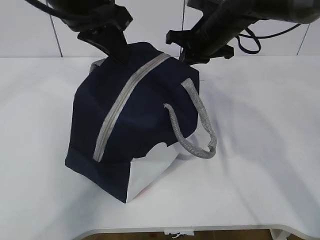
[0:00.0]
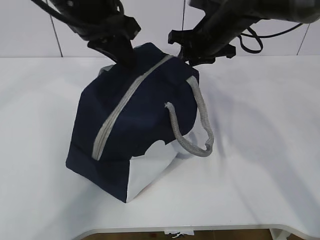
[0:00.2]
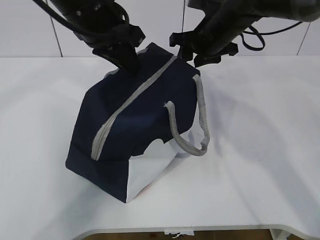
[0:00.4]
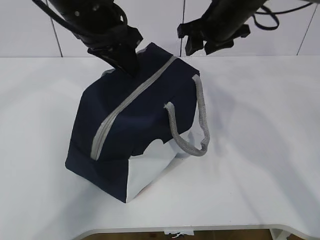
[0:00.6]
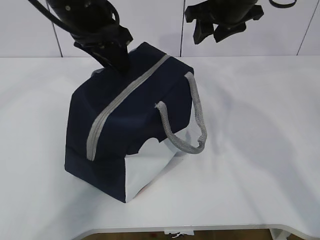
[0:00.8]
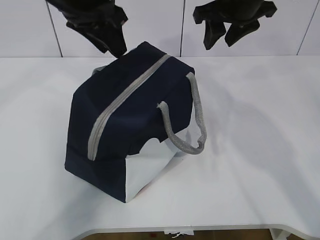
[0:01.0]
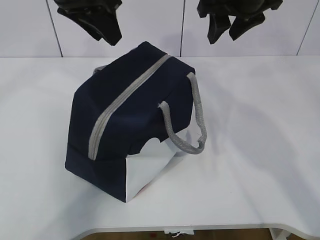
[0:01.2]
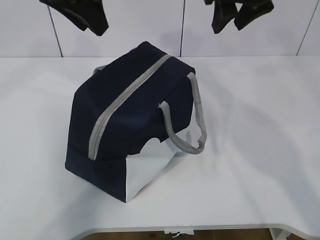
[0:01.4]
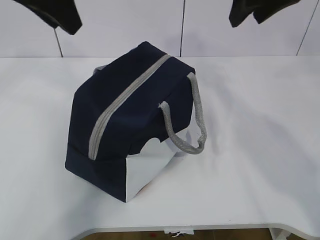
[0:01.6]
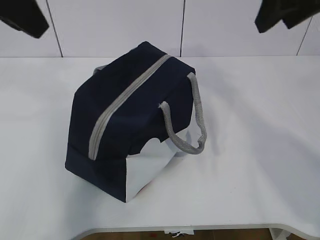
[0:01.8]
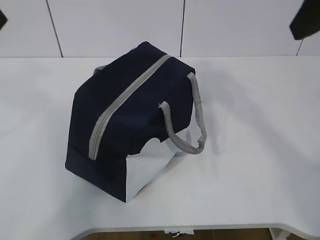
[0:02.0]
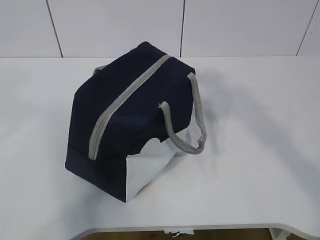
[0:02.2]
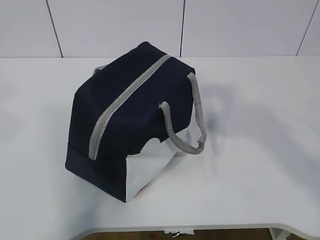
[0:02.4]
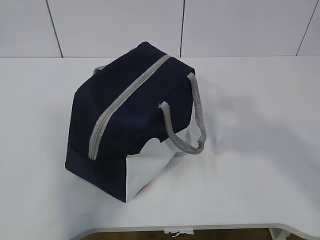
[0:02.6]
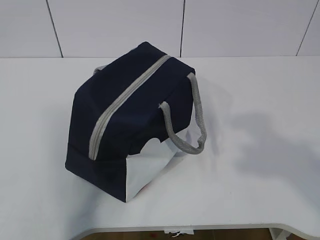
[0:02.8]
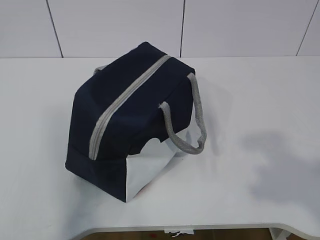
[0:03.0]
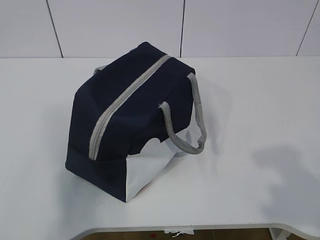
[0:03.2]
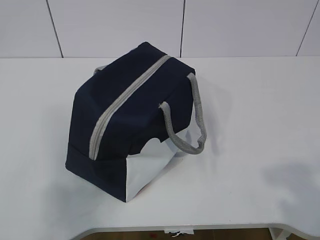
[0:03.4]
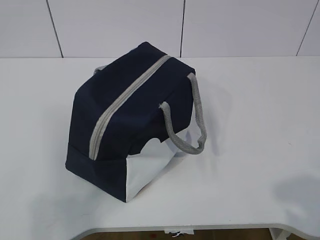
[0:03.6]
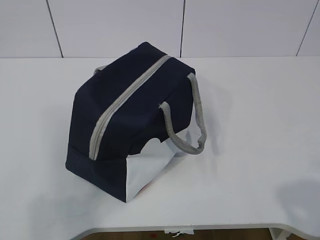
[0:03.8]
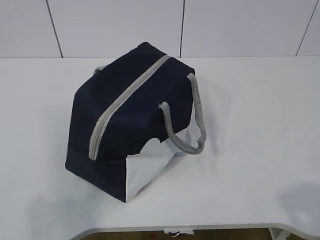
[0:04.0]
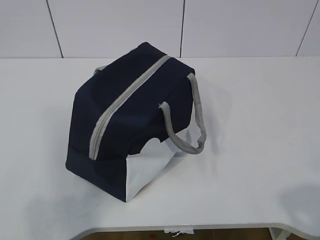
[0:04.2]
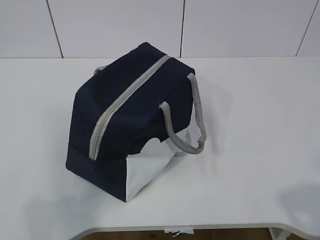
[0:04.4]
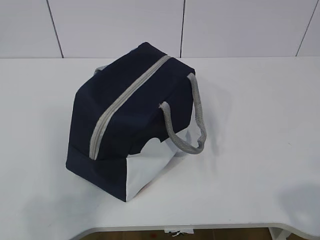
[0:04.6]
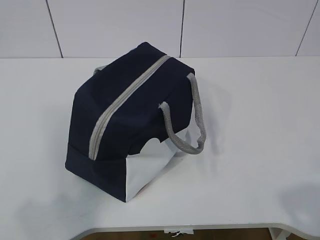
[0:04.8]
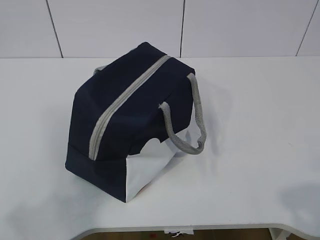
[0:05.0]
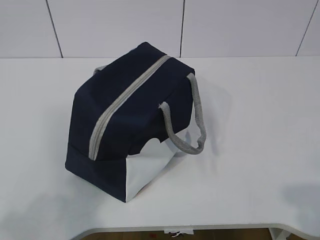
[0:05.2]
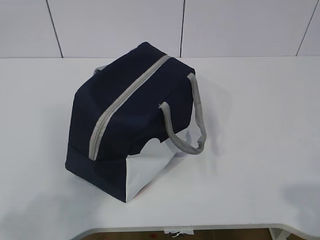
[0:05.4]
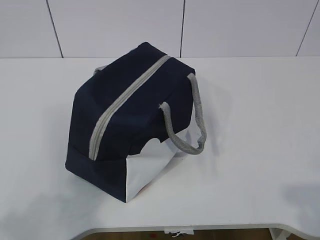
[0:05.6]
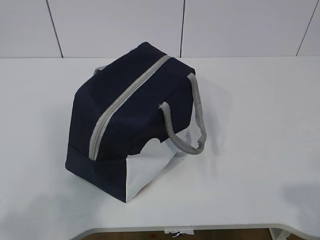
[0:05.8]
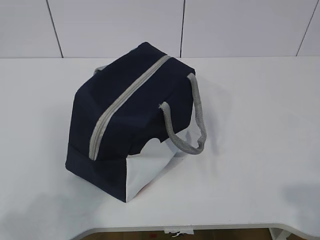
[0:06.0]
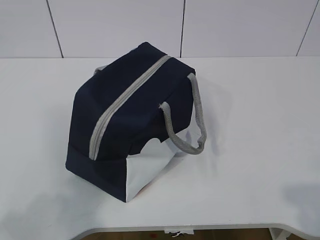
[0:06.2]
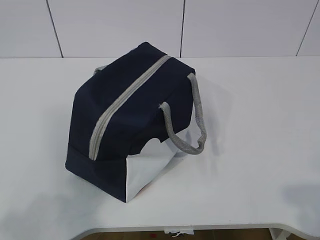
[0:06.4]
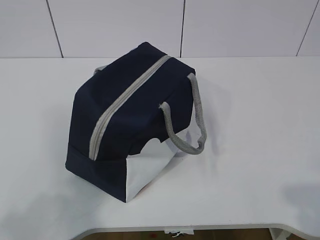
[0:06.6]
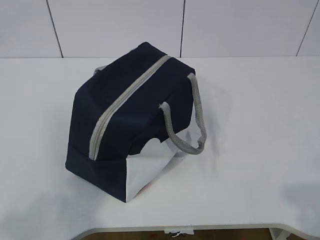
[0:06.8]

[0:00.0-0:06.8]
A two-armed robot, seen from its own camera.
0:00.0 to 0:01.4: The right gripper is displaced upward and backward by some 15 cm, and opens; the left gripper opens up.
0:01.4 to 0:02.8: The right gripper moves backward, some 35 cm; the left gripper is displaced backward and to the left by roughly 30 cm.
0:02.8 to 0:04.0: The grippers both shift downward and backward by roughly 15 cm.
0:05.4 to 0:06.8: Both grippers stay put.

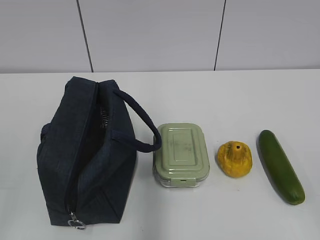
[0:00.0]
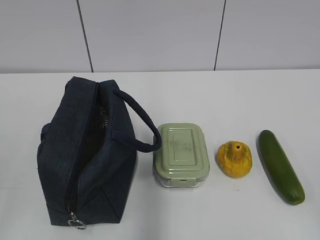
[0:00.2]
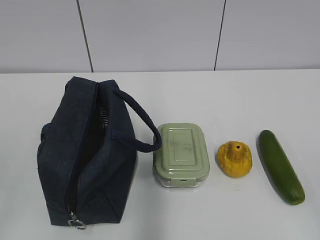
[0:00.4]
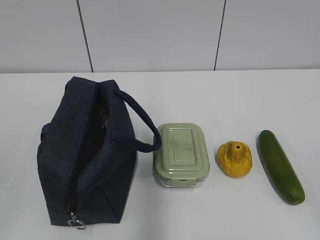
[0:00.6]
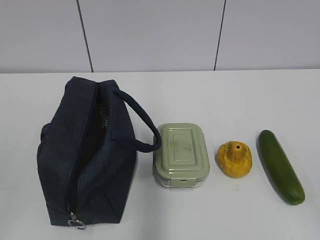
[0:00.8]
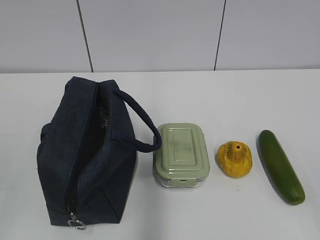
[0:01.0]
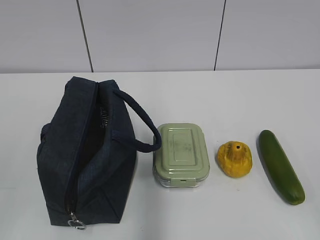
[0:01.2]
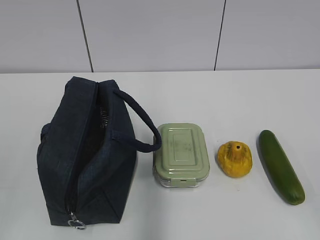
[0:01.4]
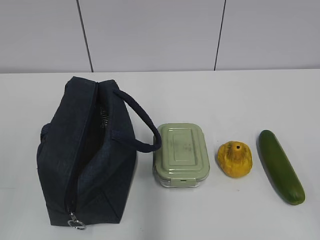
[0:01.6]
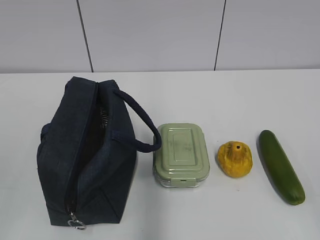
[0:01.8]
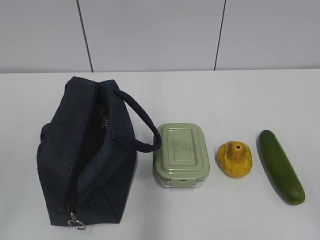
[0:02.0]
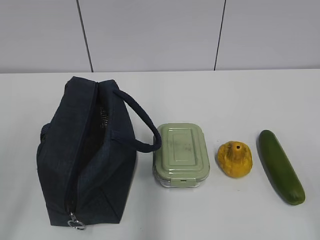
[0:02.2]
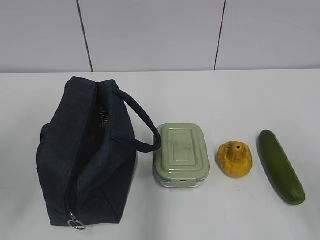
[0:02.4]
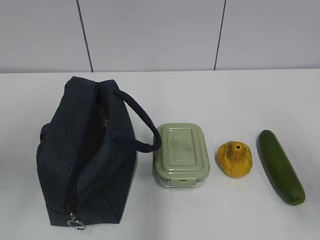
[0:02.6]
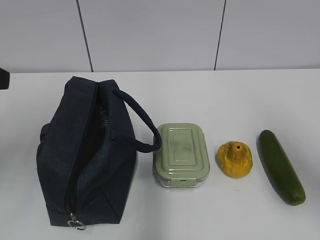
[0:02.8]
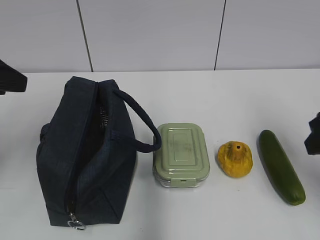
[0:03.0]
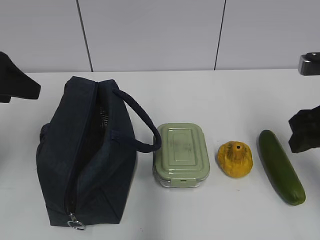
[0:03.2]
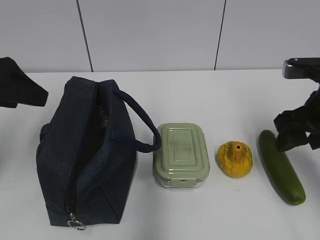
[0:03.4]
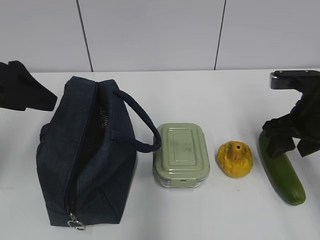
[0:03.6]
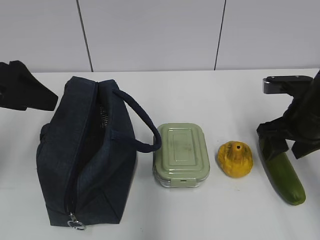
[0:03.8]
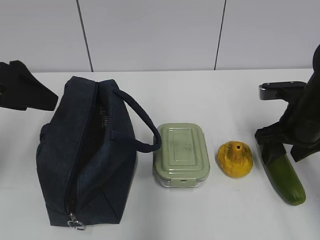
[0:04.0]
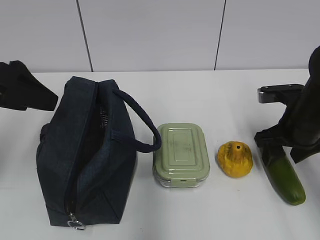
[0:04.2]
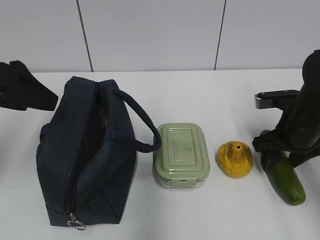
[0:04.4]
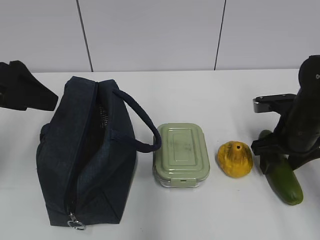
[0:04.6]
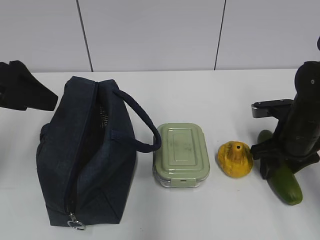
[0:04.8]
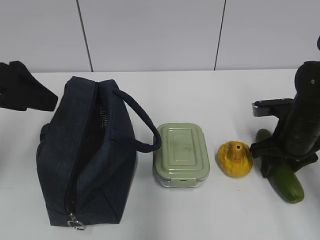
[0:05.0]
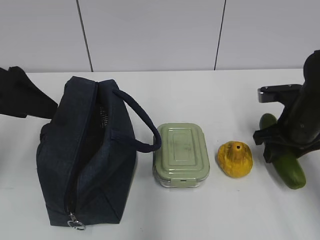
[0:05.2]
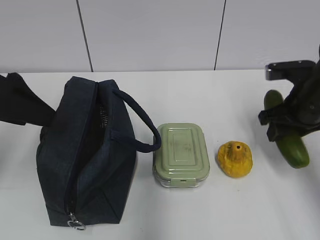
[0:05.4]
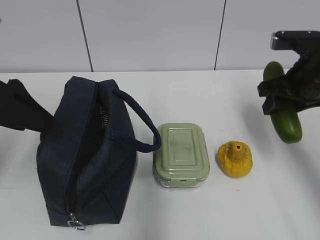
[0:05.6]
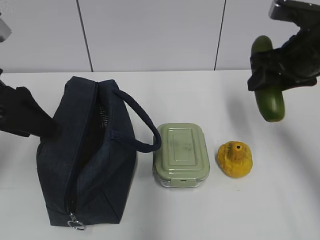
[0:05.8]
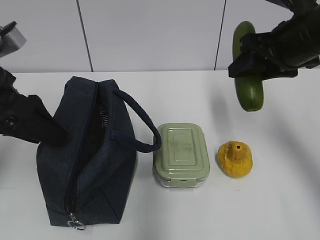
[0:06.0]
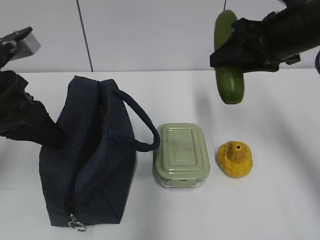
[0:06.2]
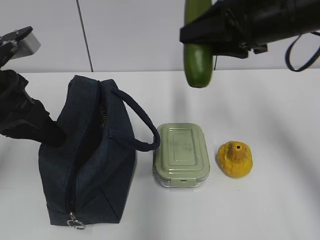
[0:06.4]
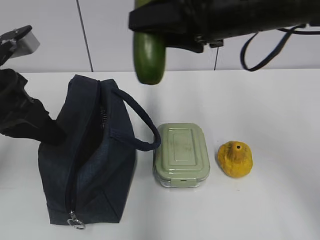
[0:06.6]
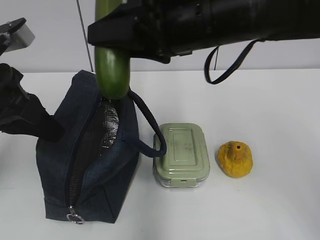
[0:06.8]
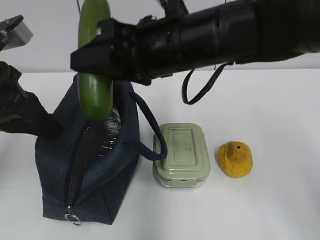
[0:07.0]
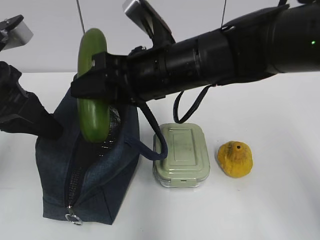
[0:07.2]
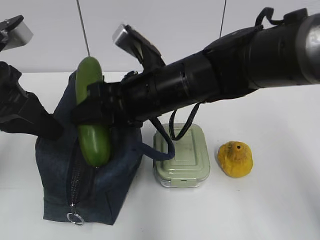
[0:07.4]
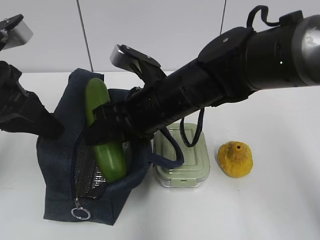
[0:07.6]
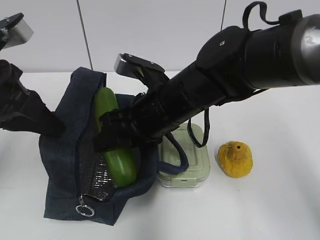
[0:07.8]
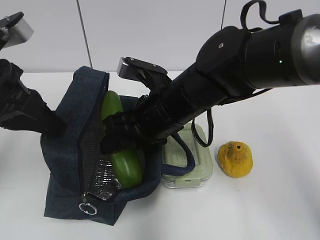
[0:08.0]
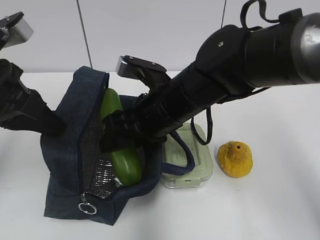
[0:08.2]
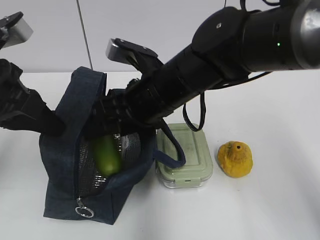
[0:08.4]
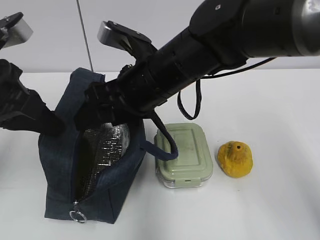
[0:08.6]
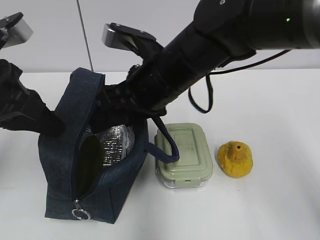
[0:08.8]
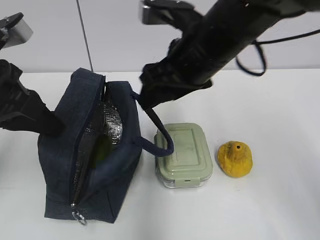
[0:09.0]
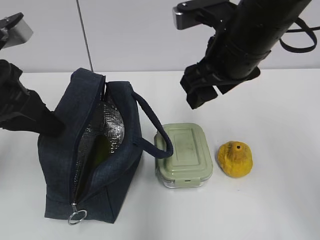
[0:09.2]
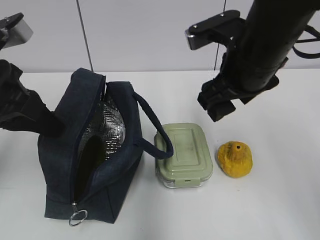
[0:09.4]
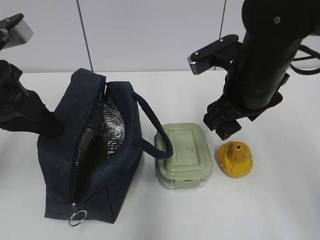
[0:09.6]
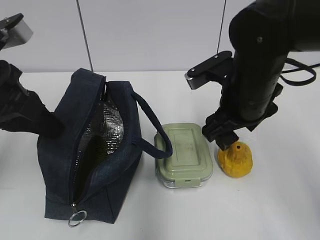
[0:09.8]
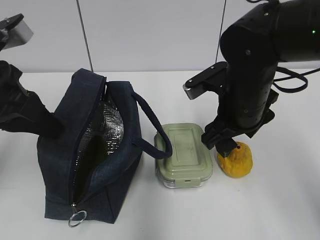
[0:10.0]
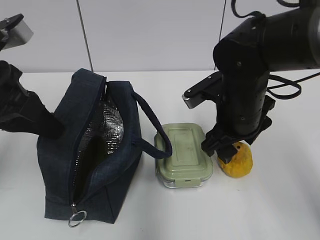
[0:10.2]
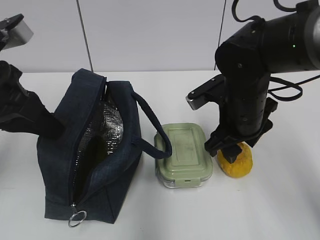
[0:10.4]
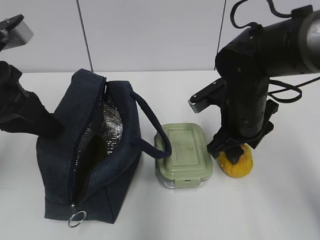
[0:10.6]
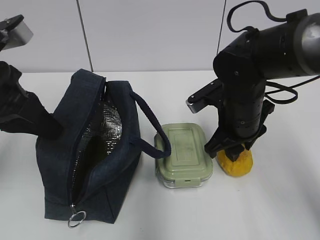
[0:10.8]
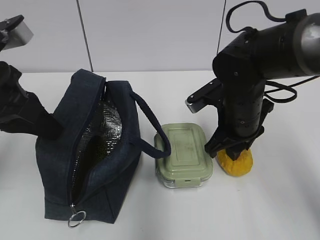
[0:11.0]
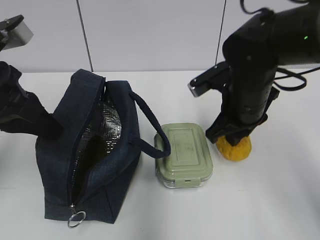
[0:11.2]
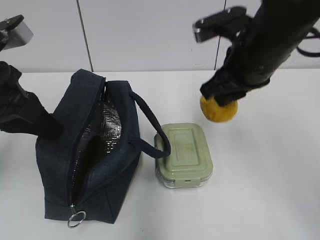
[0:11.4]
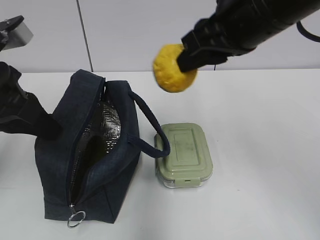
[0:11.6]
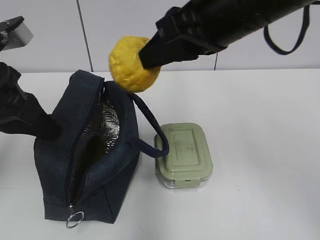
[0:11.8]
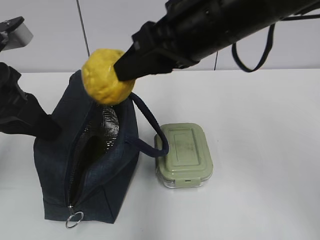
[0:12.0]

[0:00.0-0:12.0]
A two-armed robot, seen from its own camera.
Step, 0:00.0 to 0:04.8: Grab the cucumber with your right hand.
Step, 0:05.2 to 0:06.6: Grab the lunch bag with your left hand.
Step, 0:06.8 to 0:08.8: Place it into the bag with your right hand.
Step, 0:09.0 to 0:11.0: Grab the pear with your right hand.
0:01.6 to 0:03.0: Both grippers travel together forward, some 25 cm.
0:03.0 to 0:04.4: The right gripper heads downward and forward, covering roughly 15 cm.
0:04.4 to 0:06.0: The right gripper travels upward by about 15 cm.
0:06.0 to 0:07.6: The right gripper goes approximately 20 cm to the left. Meanwhile the left gripper closes.
0:07.6 to 0:09.0: The right gripper moves upward and to the right, some 10 cm.
0:09.0 to 0:10.4: The right gripper travels downward and to the right by about 10 cm.
0:10.4 to 0:12.0: The right gripper heads upward and to the left, covering about 15 cm, and closes up.

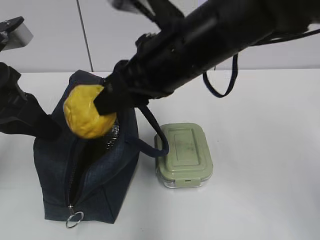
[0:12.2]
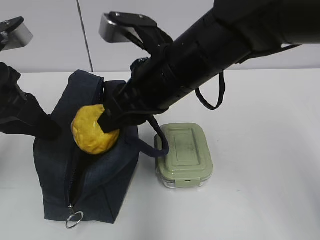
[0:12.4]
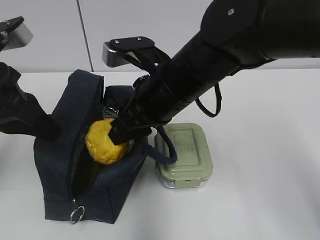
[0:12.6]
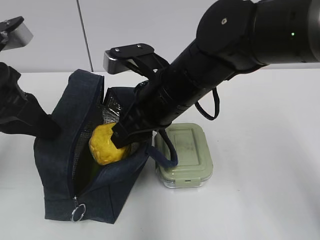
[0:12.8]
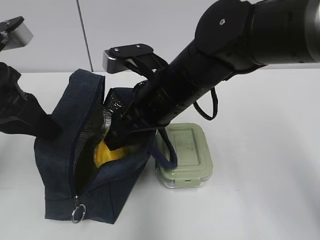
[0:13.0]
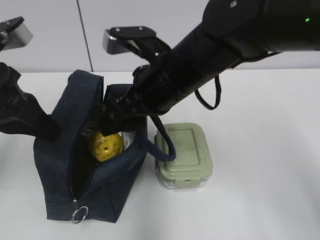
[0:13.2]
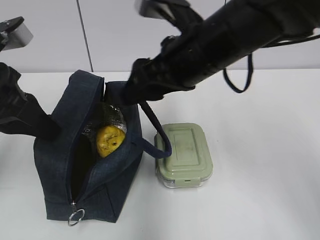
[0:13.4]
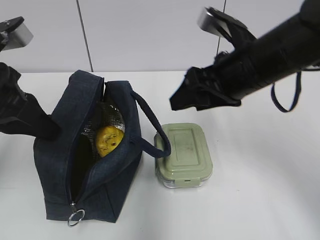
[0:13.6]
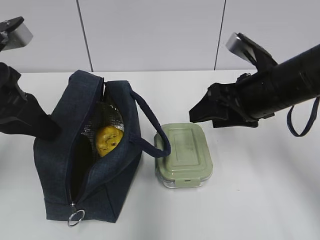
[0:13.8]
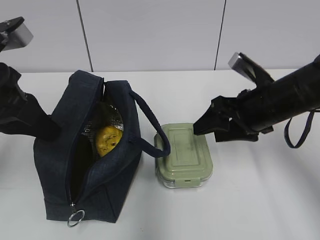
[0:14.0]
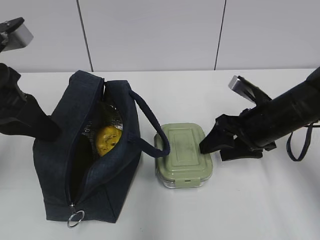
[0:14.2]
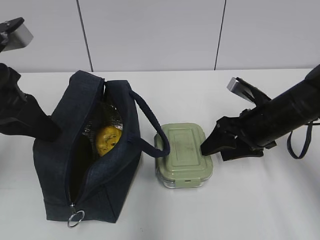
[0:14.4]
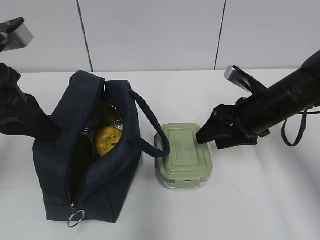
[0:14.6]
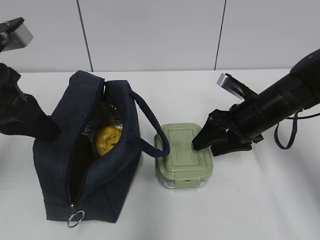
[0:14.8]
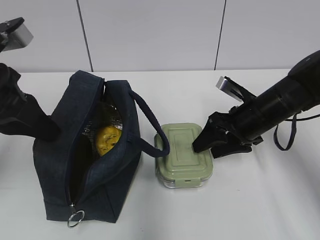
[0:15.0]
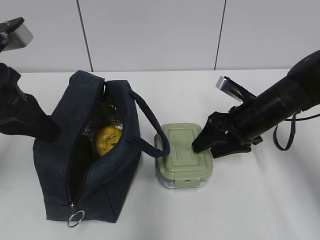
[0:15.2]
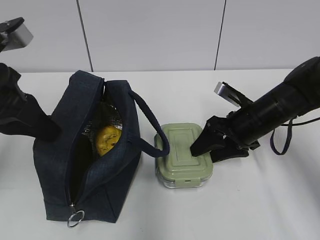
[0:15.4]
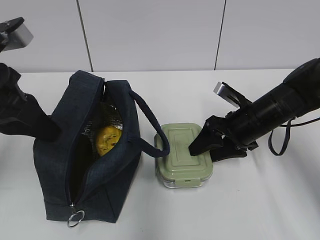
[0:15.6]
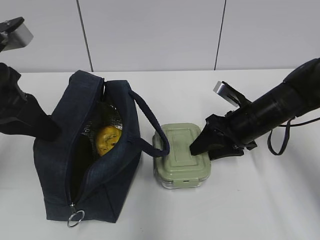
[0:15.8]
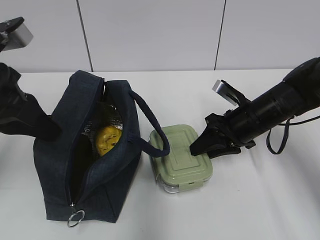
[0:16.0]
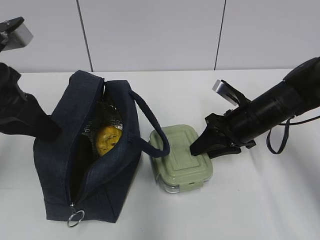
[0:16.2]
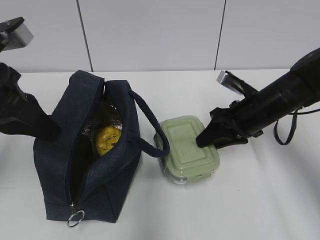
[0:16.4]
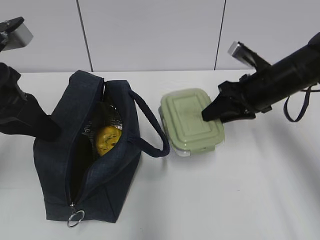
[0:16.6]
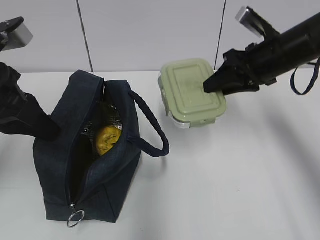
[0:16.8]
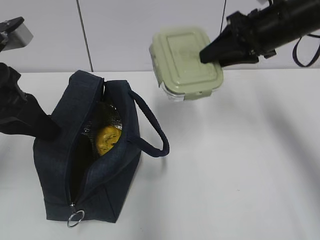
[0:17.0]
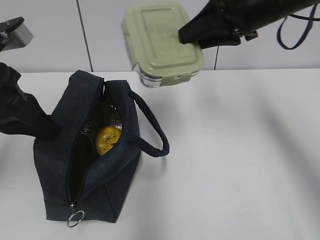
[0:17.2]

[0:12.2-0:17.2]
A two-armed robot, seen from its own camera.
Step, 0:13.4 to 0:16.2: Grab the lunch box with your right hand.
0:12.2 to 0:13.8: The right gripper goes approximately 15 cm to the right and downward, and opens its fingers.
0:13.8 to 0:15.6: The right gripper is displaced downward by some 10 cm.
0:15.6 to 0:17.2: The right gripper moves upward, roughly 20 cm, and closes its fingers.
